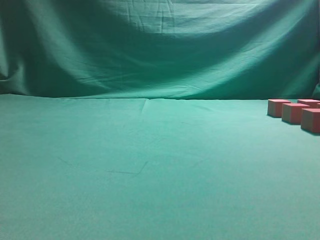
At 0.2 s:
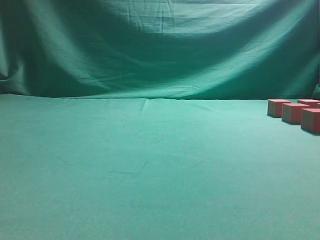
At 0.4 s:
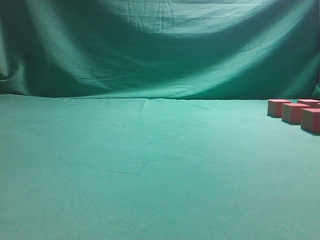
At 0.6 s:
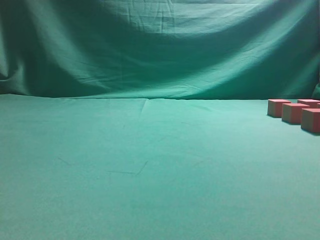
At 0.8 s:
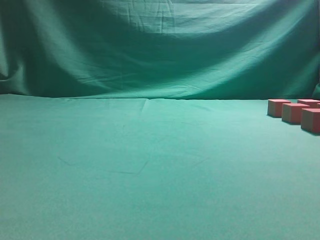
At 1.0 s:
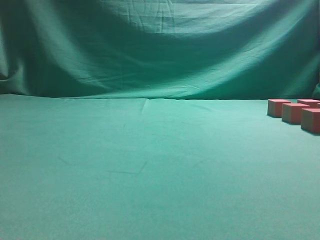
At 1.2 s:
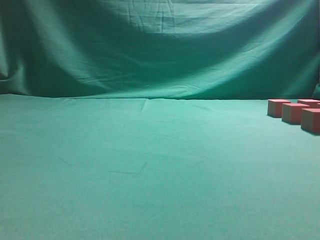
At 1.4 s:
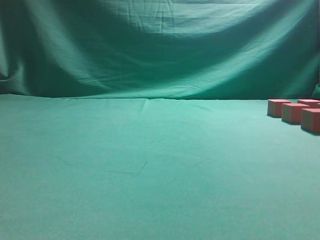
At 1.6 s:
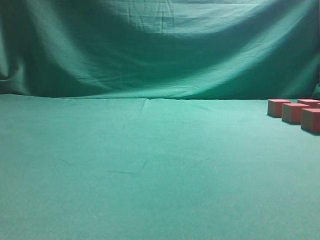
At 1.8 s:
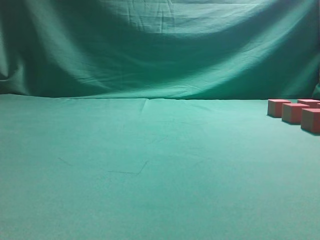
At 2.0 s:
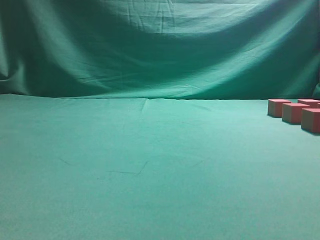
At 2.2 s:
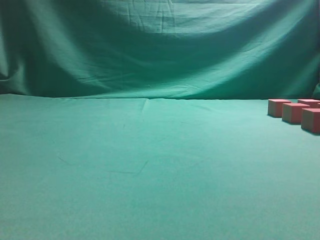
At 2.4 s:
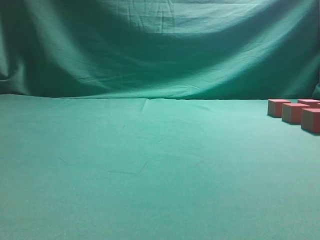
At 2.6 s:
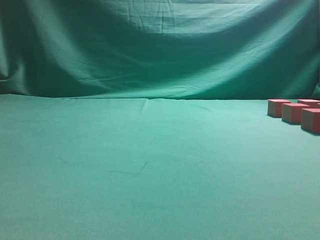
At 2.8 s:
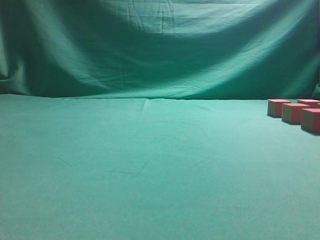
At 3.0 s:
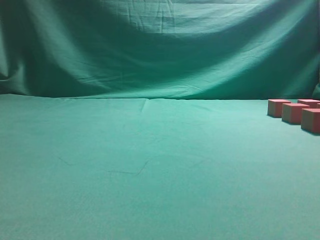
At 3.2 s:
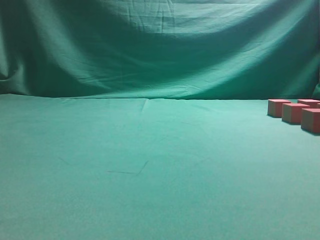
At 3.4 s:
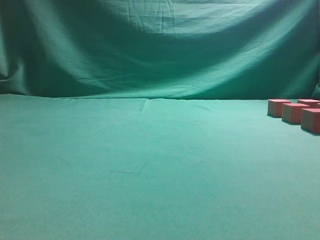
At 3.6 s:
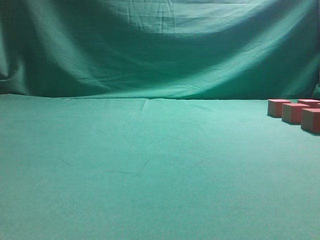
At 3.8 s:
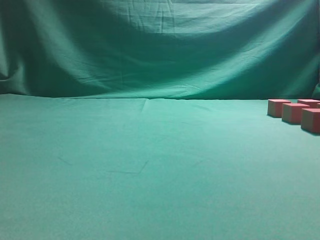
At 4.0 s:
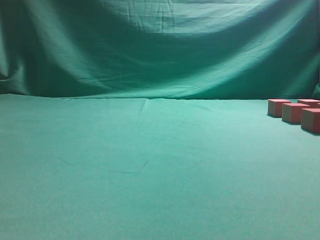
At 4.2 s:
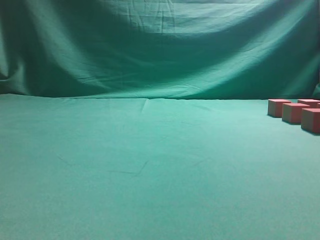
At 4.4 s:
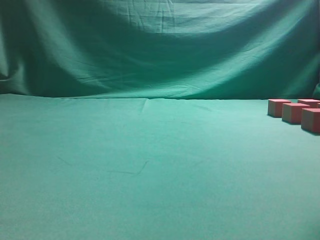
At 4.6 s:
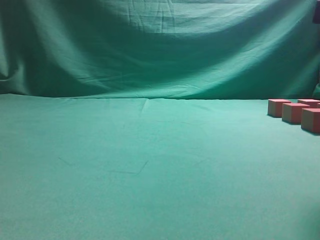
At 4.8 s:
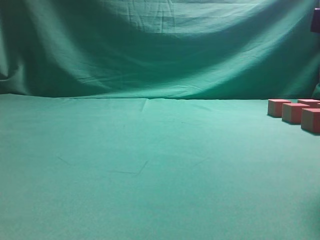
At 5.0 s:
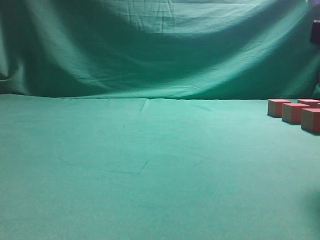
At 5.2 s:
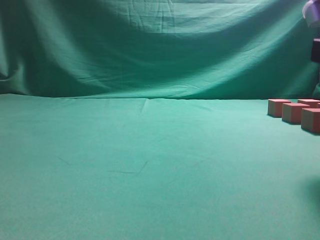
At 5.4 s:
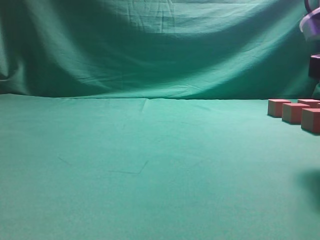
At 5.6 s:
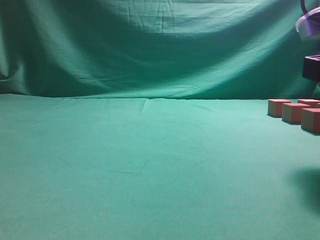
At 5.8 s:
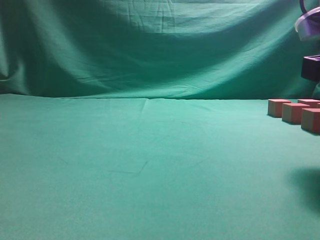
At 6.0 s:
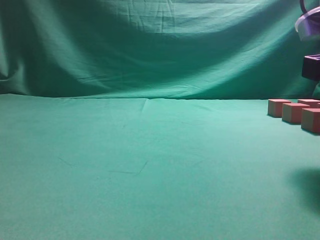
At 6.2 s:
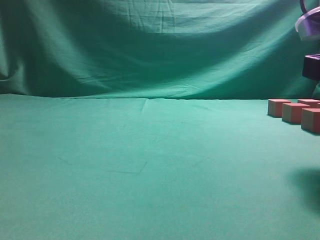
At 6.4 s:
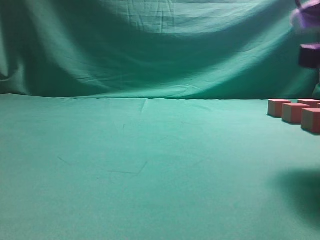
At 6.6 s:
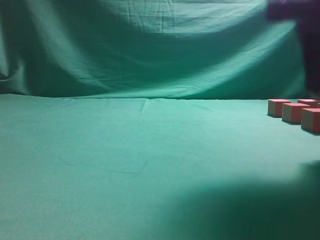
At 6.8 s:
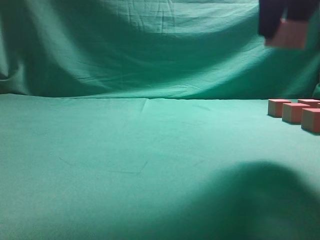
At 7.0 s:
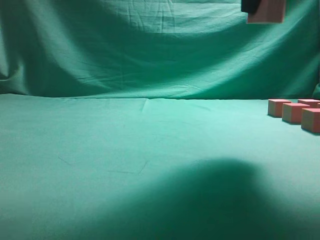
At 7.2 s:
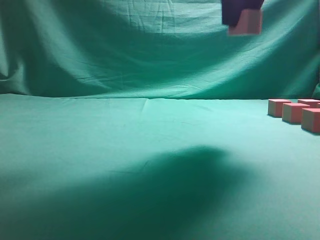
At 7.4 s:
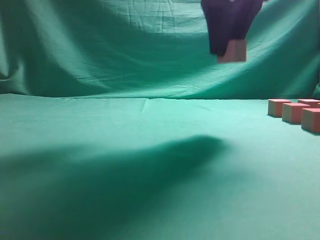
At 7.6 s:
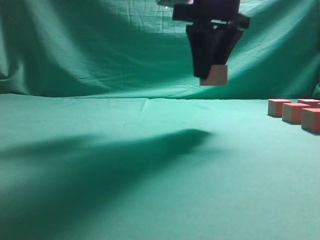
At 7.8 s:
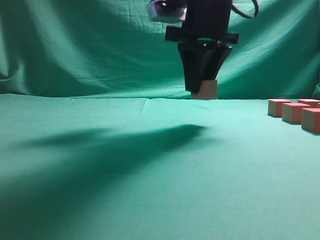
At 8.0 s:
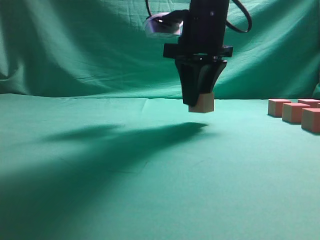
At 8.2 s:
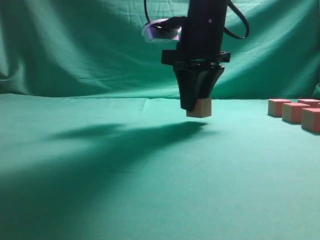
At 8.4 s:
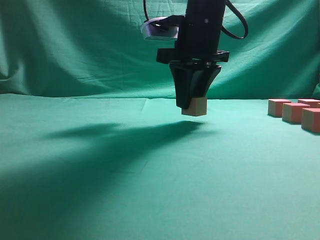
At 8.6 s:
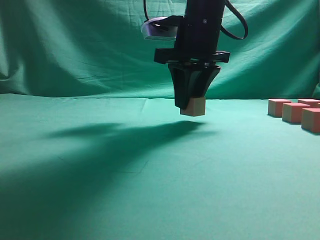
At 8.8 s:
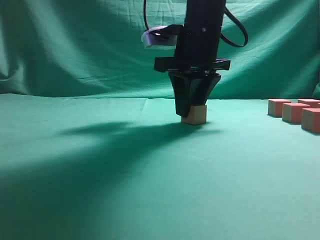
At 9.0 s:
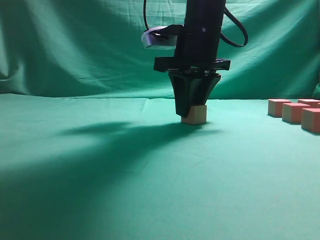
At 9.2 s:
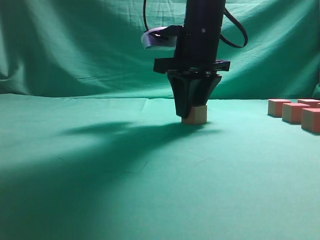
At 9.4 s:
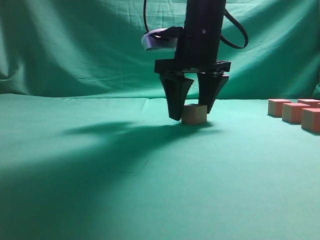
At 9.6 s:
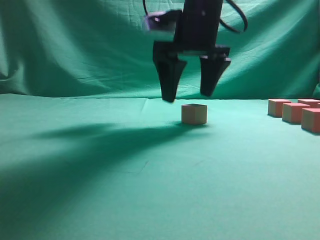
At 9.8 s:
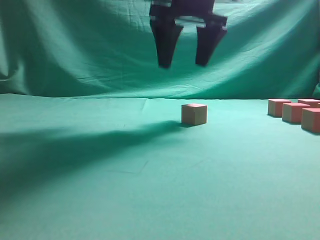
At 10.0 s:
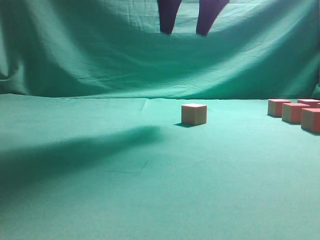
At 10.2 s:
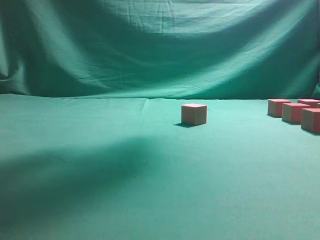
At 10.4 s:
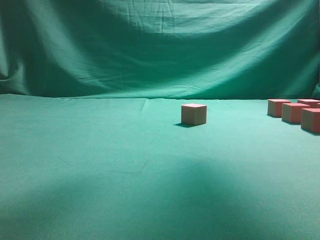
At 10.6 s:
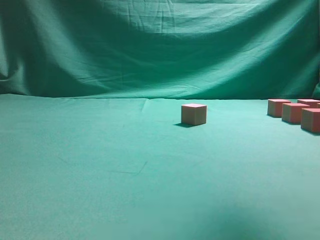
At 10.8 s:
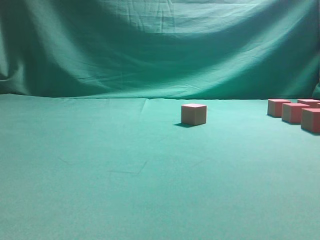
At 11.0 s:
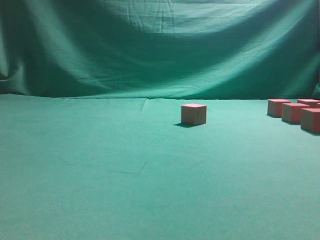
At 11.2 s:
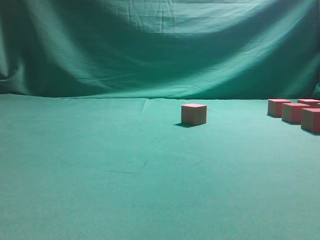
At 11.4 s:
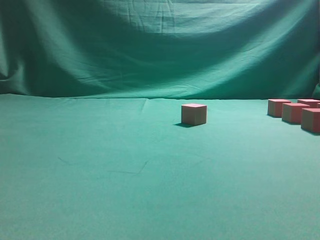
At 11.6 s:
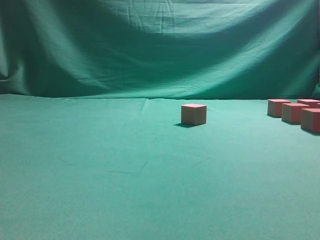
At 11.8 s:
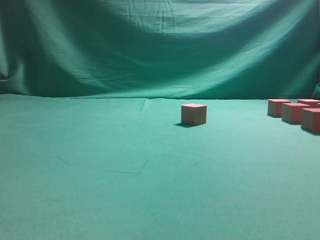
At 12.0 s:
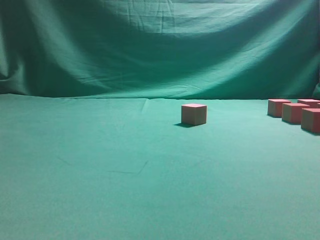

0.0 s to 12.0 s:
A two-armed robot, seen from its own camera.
Task of the whole recording: pick up the multiple cubes in two columns one by one and place them in another position on the table.
Step, 0.0 to 6.8 s: Pick up the block on the table.
Step, 7.0 to 9.8 s: Place the block at the correct position to assemble the letter S.
4.4 to 6.0 s: The right gripper ends up roughly 5 cm from where it was, and opens, then closes once more.
6.0 to 7.6 s: The right gripper heads forward, to the left and upward, covering approximately 20 cm.
7.6 to 9.0 s: The right gripper goes some 5 cm downward.
9.0 to 10.4 s: The right gripper goes approximately 20 cm upward, and opens its fingers.
10.4 to 12.0 s: The right gripper goes approximately 30 cm downward, to the right and backward.

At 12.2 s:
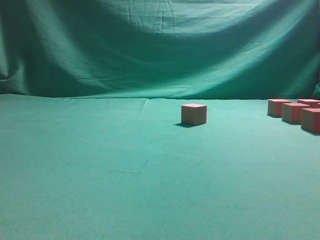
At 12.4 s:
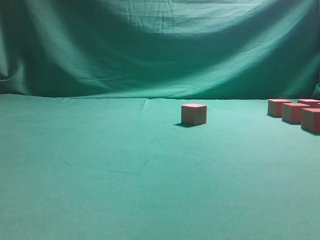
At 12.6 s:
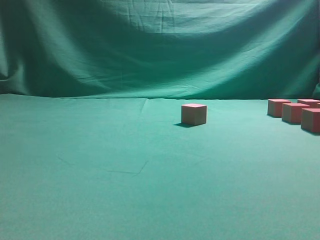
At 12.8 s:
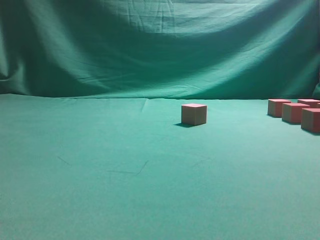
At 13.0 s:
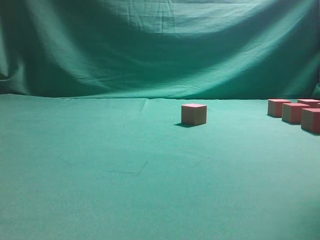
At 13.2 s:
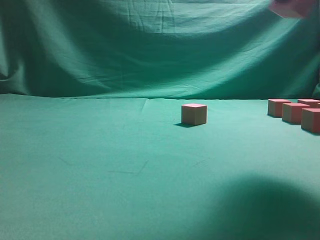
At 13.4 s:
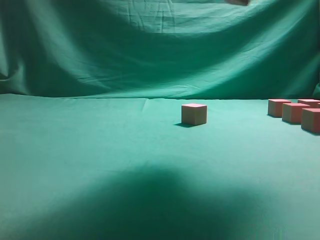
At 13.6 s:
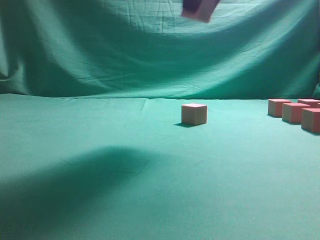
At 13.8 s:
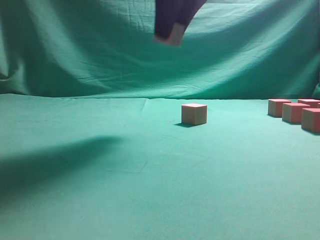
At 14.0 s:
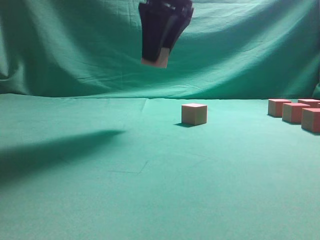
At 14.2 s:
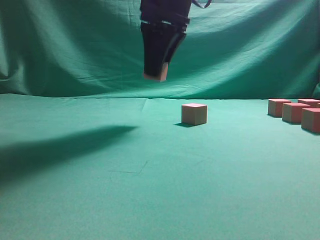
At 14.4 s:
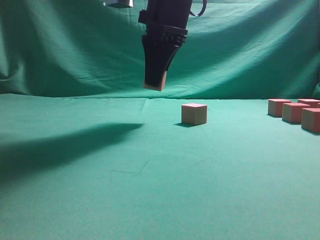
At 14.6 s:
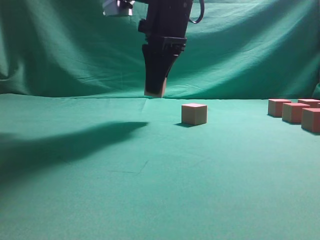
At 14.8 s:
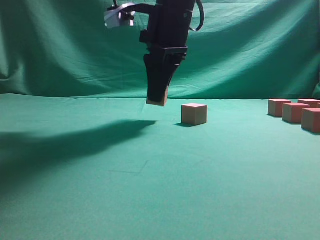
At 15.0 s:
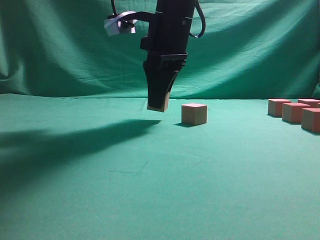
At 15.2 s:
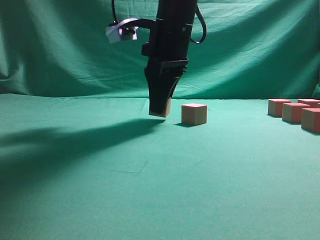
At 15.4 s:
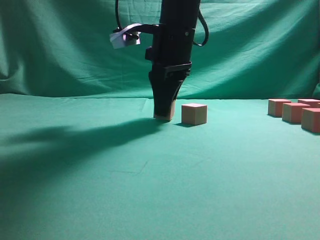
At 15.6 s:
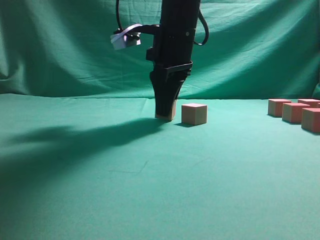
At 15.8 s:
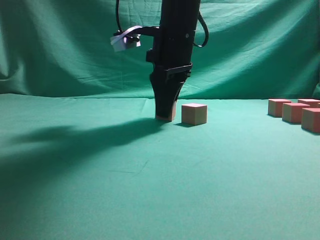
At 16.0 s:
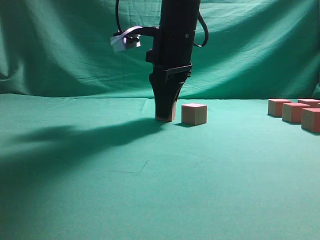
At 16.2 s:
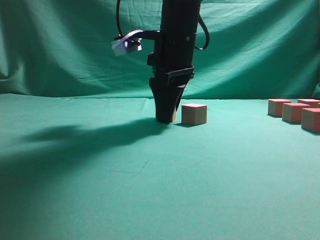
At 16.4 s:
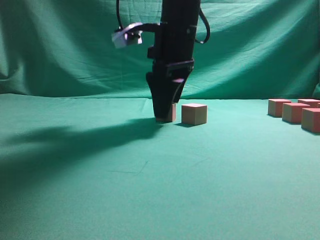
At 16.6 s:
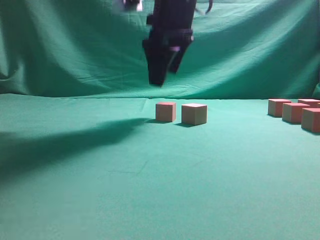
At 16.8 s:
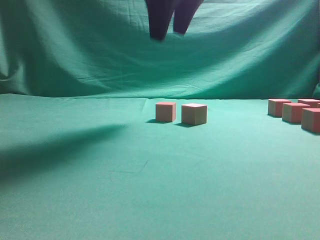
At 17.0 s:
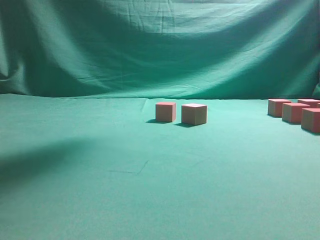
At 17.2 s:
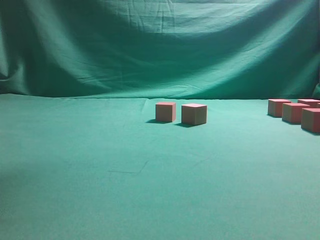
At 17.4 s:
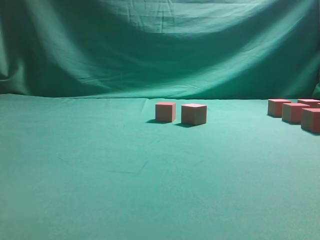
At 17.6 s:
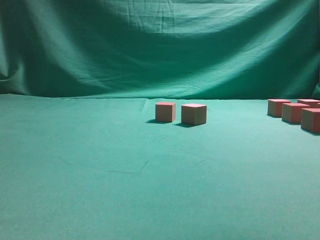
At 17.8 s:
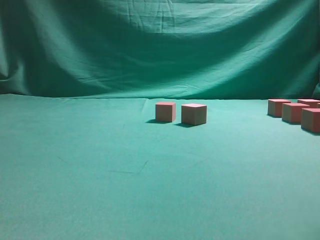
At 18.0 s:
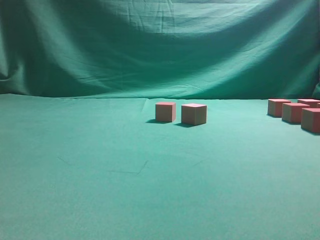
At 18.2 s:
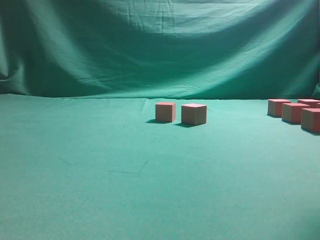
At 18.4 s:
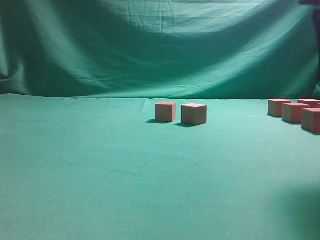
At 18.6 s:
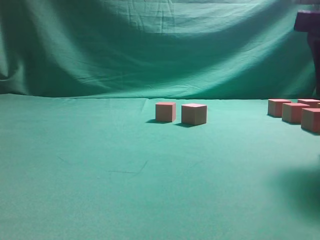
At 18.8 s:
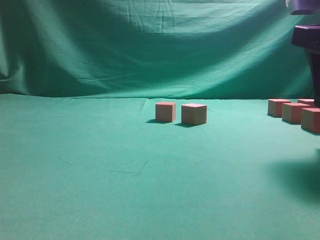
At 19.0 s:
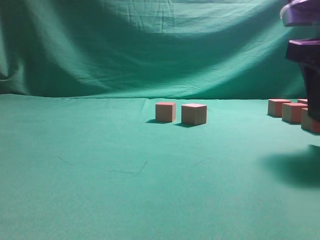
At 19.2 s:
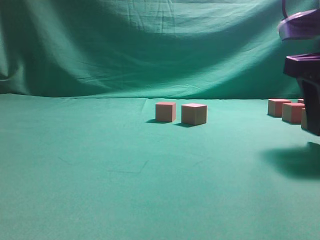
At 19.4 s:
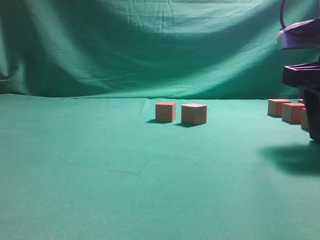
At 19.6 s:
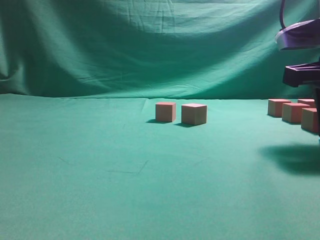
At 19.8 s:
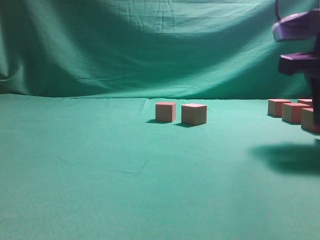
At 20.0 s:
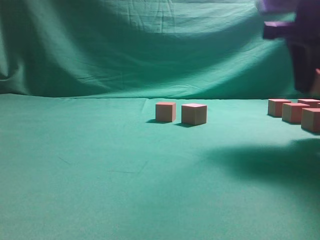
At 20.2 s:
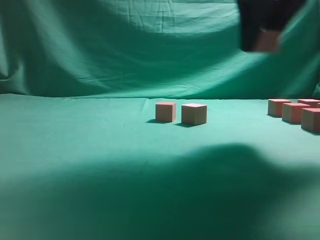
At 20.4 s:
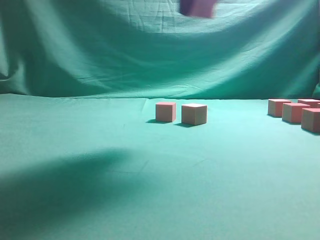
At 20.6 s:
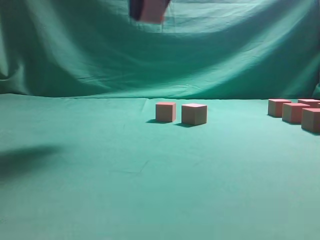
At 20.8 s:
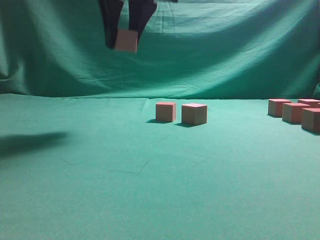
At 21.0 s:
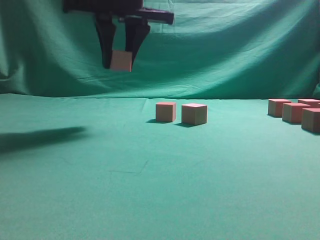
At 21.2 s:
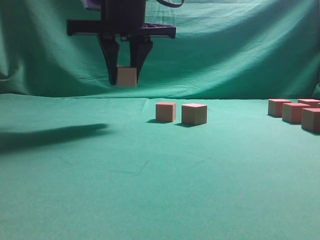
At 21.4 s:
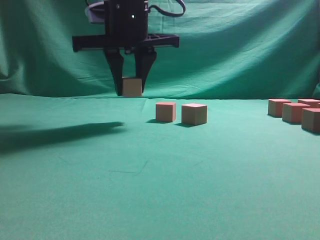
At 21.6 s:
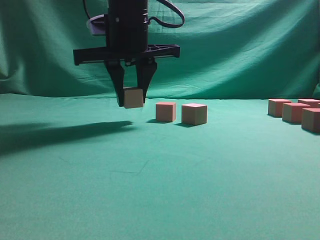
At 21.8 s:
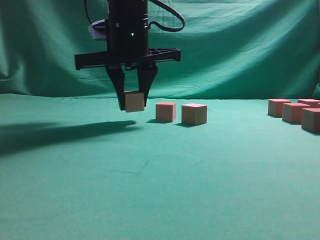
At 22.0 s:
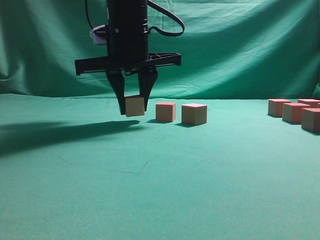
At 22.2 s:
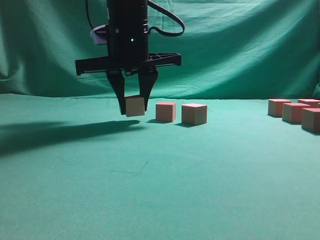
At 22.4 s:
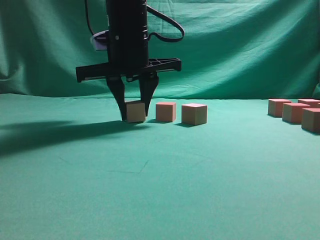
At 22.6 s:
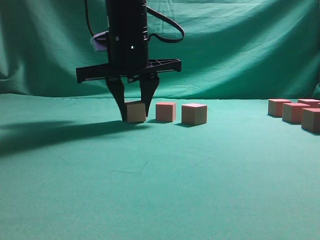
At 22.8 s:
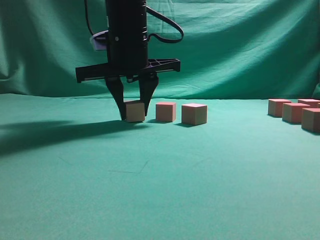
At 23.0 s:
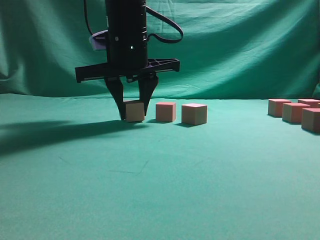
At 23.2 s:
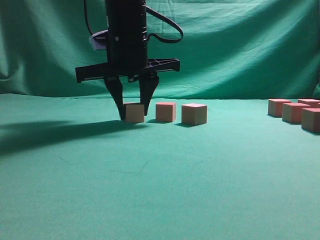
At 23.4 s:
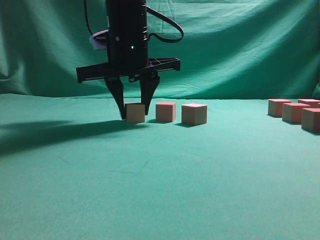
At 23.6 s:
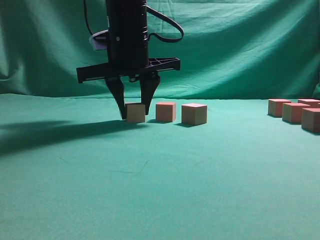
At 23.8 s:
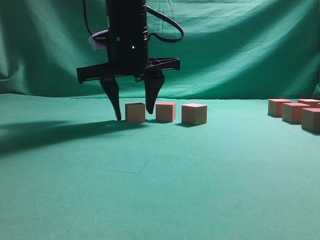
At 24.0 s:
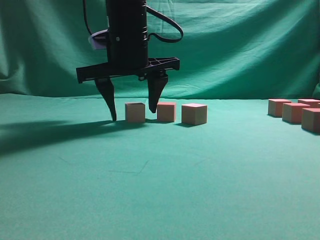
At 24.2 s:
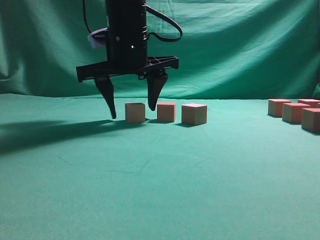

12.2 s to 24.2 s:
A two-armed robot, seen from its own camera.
Task of the whole recording: pick up the multiple cubes in two columns one by one and place them in another position on the table.
Step, 13.2 to 16.8 s: Place the block at the correct position to assemble the letter S.
Step, 17.0 to 20.0 s: Pick up the block on the table.
12.2 to 13.8 s: The right gripper heads to the left, upward and forward, covering roughly 30 cm.
13.8 to 15.2 s: The right gripper travels downward by some 10 cm.
15.2 to 16.6 s: The right gripper opens its fingers.
16.6 to 18.2 s: The right gripper shifts some 25 cm to the right and backward, and reaches some 20 cm upward, then returns.
18.2 to 19.8 s: The right gripper travels downward and forward by roughly 10 cm, and closes up.
19.8 to 21.2 s: The right gripper travels to the left by approximately 25 cm.
21.2 to 22.6 s: The right gripper is displaced downward by about 5 cm.
22.6 to 24.2 s: Both grippers stay about where they are.